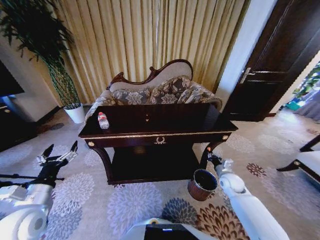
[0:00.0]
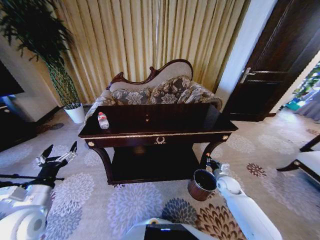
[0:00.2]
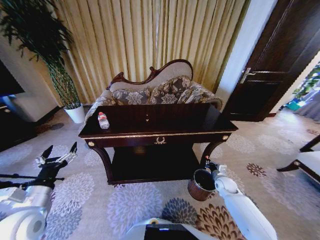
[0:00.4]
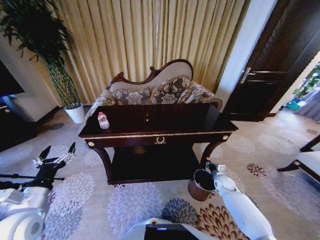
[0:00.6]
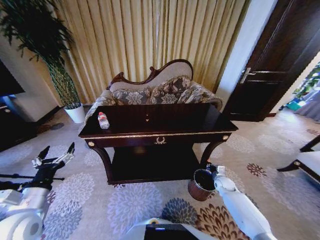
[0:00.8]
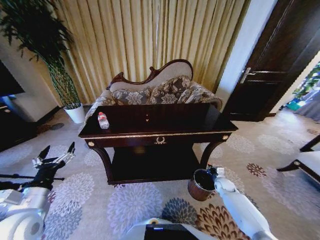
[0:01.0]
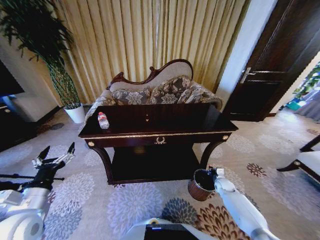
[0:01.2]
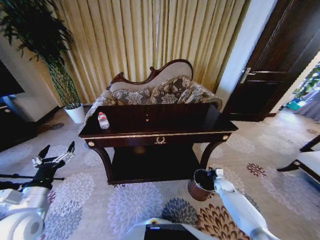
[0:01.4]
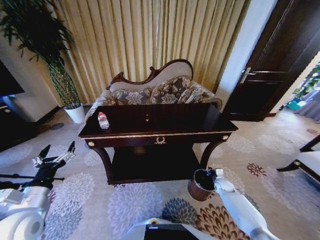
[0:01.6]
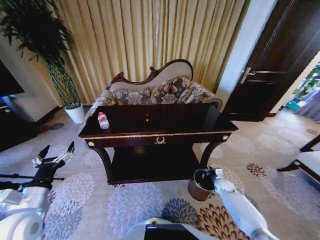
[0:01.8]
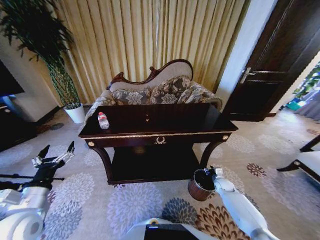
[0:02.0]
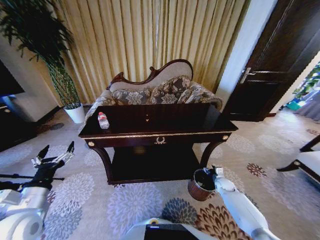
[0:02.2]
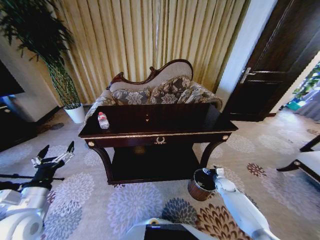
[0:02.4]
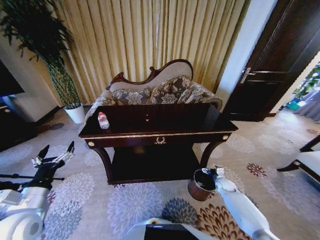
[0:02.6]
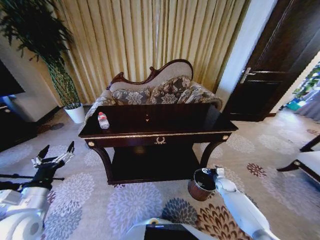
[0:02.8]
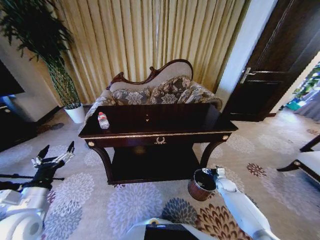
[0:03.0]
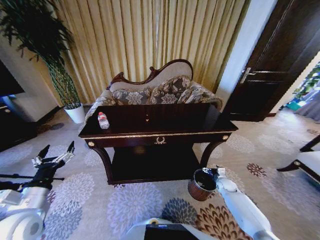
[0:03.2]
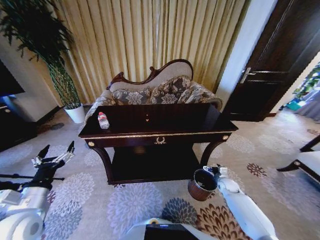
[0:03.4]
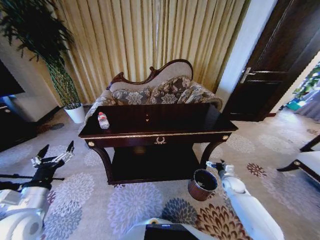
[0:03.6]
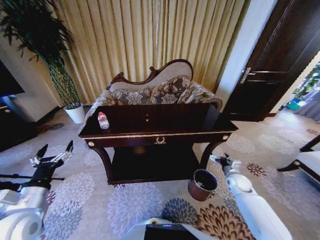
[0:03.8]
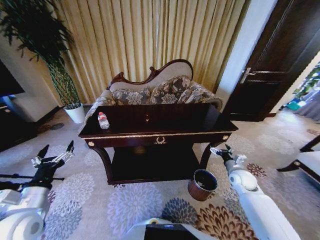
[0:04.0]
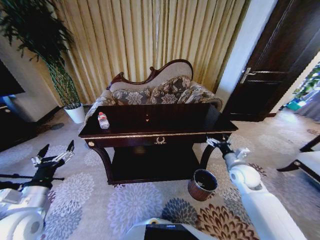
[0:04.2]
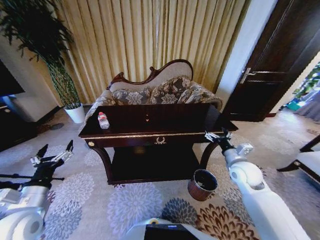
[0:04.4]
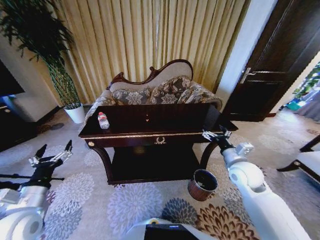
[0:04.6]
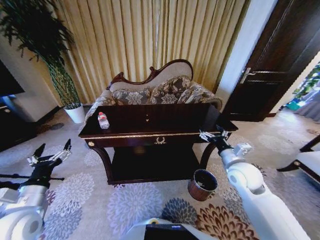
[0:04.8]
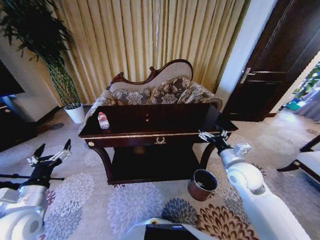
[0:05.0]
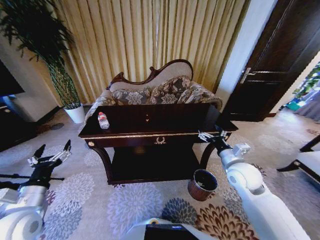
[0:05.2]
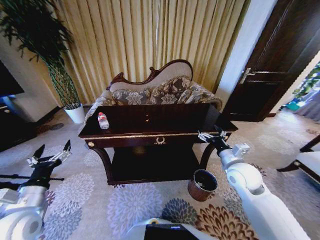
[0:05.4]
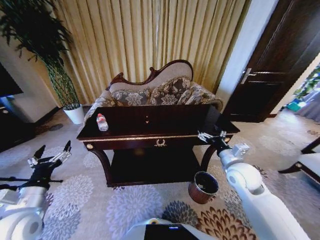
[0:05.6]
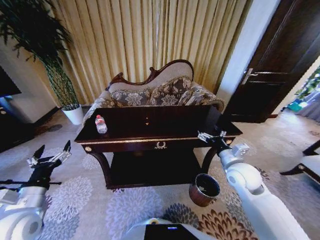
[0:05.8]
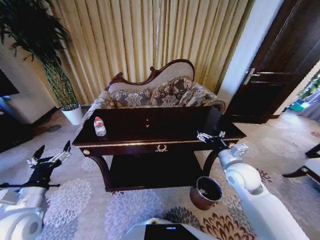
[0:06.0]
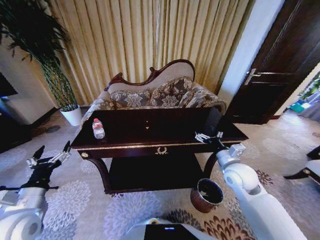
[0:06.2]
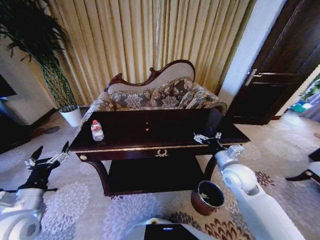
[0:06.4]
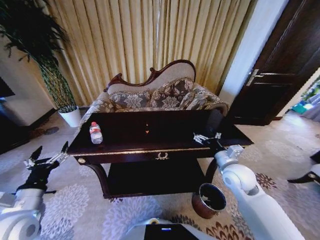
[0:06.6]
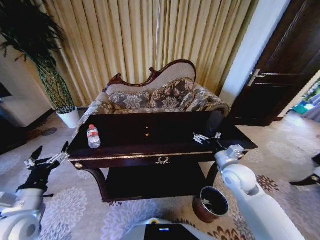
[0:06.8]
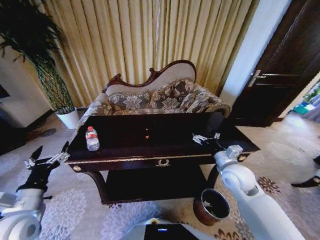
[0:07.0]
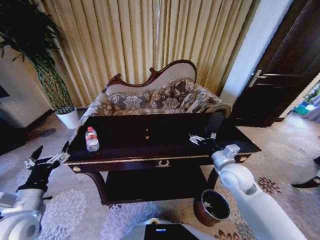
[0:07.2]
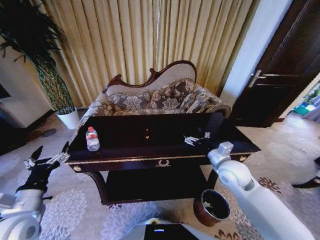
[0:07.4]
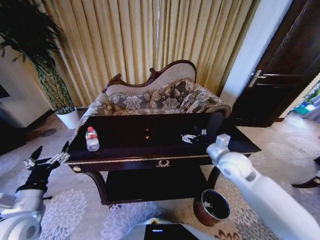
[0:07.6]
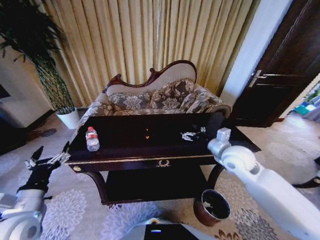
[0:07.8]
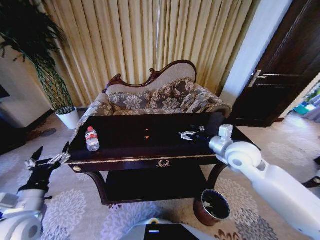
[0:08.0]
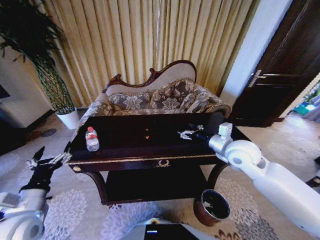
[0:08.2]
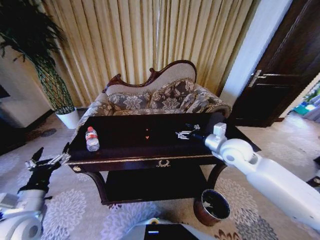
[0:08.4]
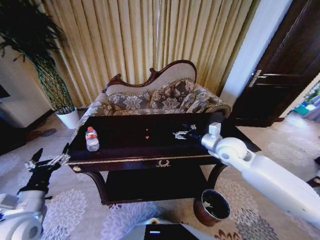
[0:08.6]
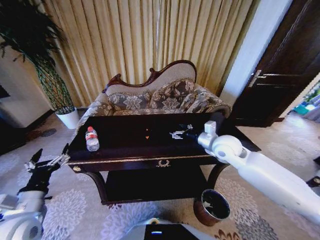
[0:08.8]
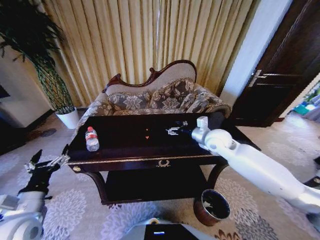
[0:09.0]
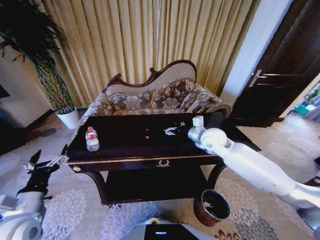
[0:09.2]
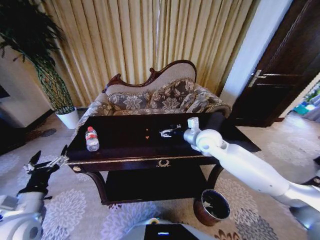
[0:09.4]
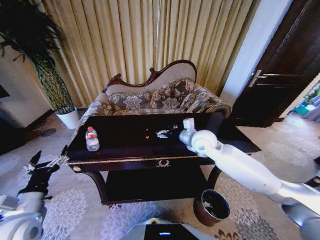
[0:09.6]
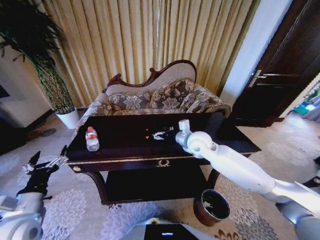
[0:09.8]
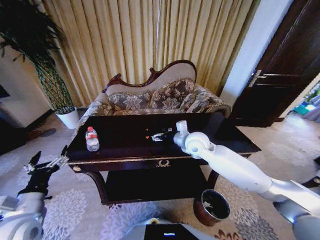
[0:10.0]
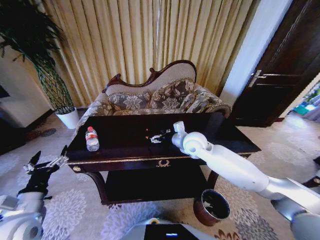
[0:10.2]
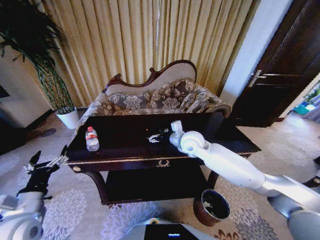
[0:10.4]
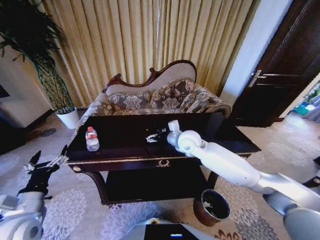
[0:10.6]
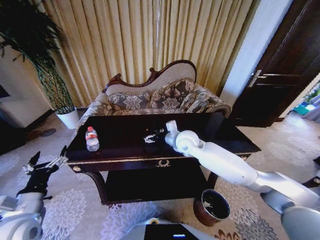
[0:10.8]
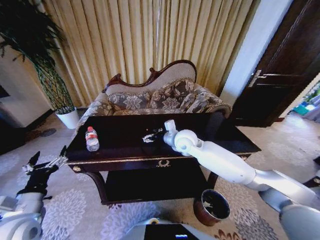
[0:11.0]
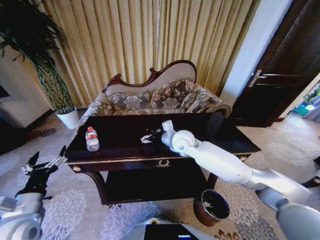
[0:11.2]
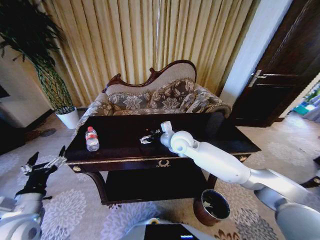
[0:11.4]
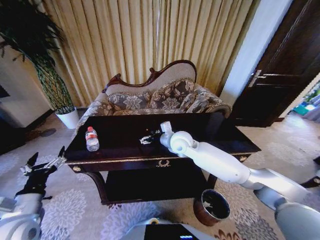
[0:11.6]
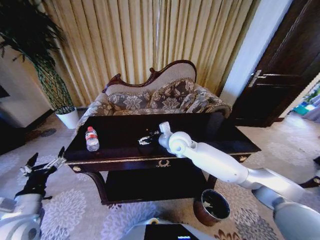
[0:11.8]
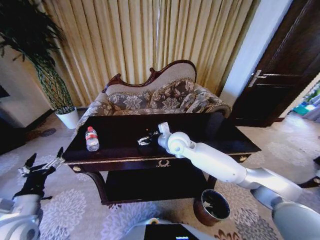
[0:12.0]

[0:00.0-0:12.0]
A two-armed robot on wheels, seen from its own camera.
Task of the whole recording: Move to the front of the table and place the trash on the table into the trash bin.
0:00.0 to 0:01.6: The right gripper moves downward, roughly 15 cm.
0:01.6 to 0:03.0: The right gripper opens up.
0:03.0 to 0:04.4: The right gripper heads upward, covering about 25 cm.
0:04.4 to 0:06.0: The right gripper ends up approximately 5 cm from where it was.
0:06.0 to 0:07.6: The right gripper changes place by about 5 cm.
0:07.6 to 0:09.0: The right gripper heads forward, covering about 10 cm.
0:09.0 to 0:10.4: The right gripper is displaced to the left by roughly 10 cm.
0:10.4 to 0:12.0: The right gripper heads to the left, covering some 5 cm.

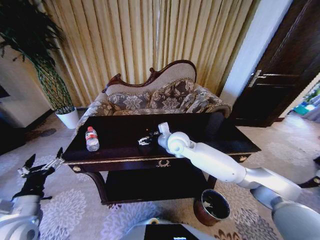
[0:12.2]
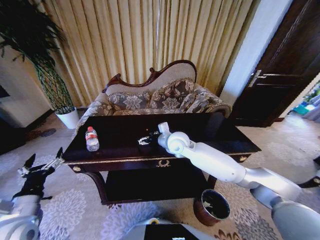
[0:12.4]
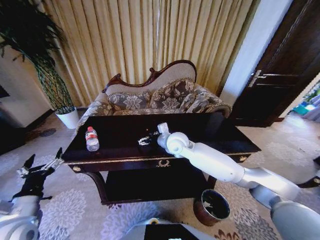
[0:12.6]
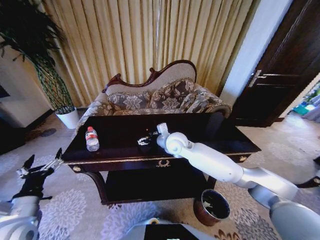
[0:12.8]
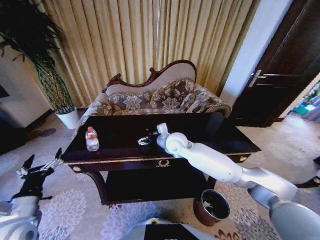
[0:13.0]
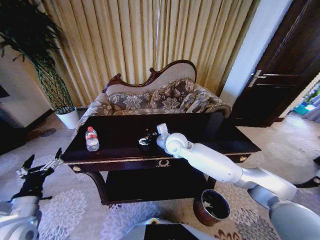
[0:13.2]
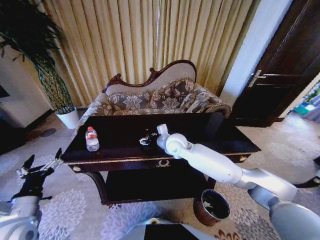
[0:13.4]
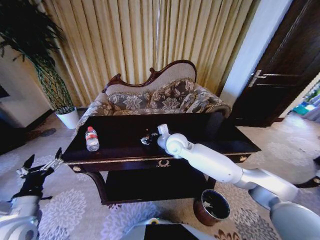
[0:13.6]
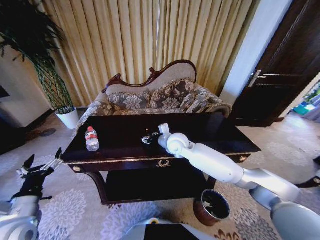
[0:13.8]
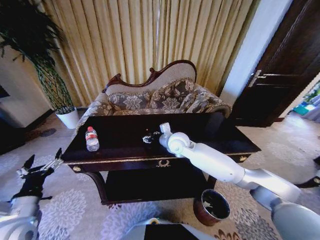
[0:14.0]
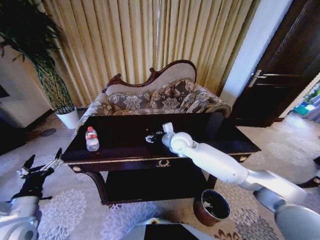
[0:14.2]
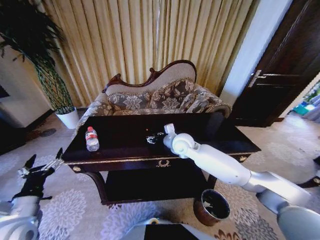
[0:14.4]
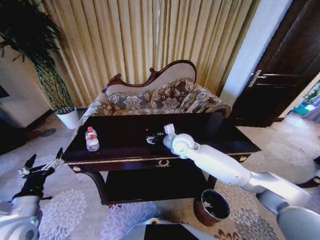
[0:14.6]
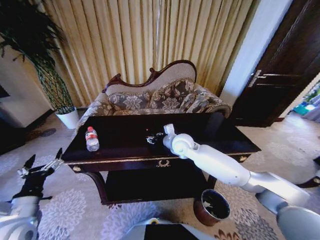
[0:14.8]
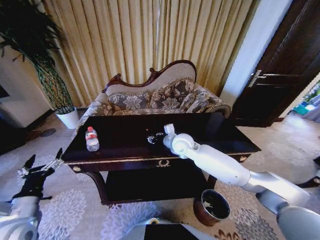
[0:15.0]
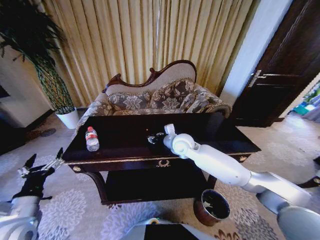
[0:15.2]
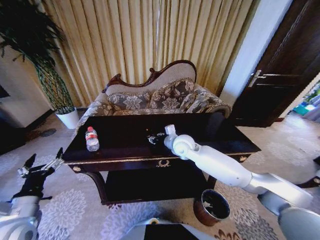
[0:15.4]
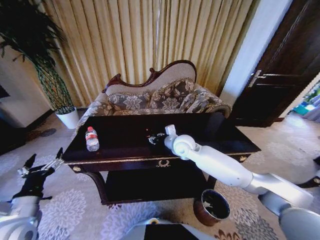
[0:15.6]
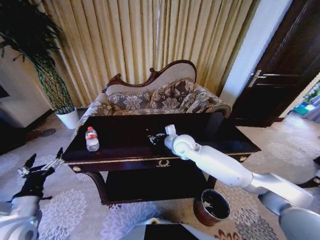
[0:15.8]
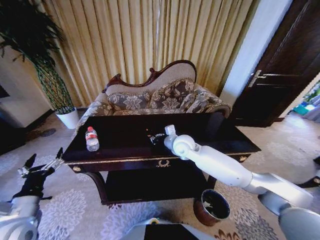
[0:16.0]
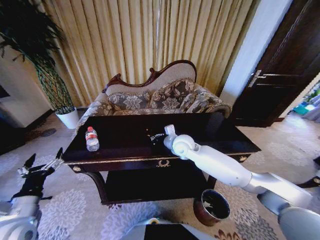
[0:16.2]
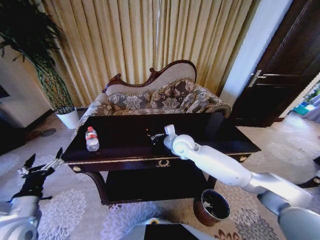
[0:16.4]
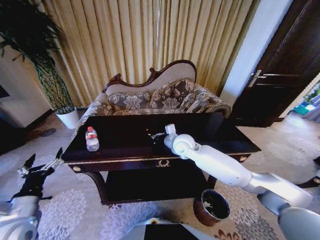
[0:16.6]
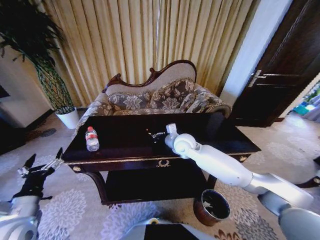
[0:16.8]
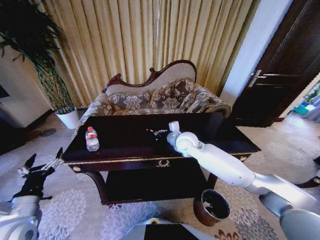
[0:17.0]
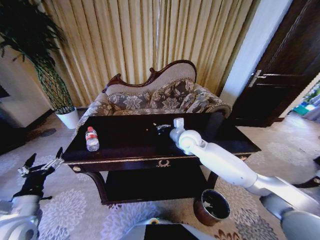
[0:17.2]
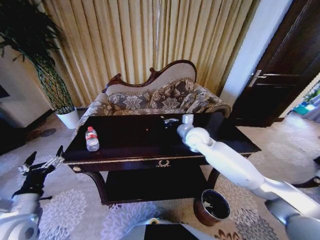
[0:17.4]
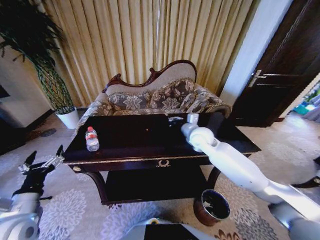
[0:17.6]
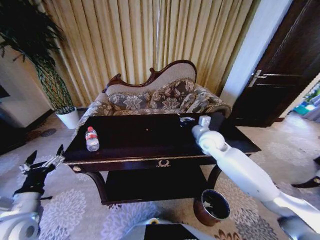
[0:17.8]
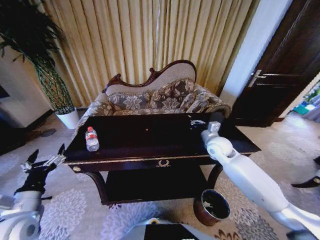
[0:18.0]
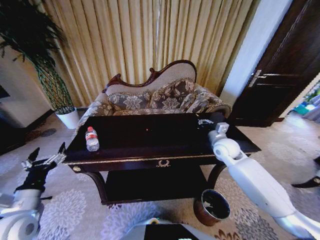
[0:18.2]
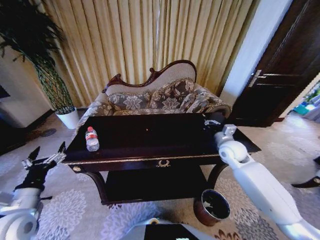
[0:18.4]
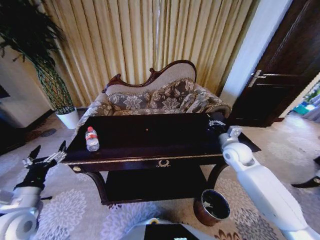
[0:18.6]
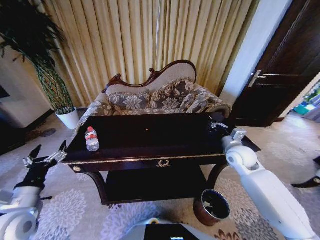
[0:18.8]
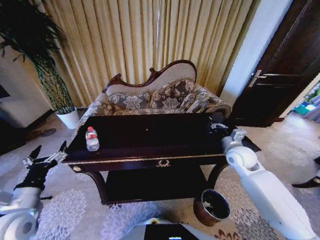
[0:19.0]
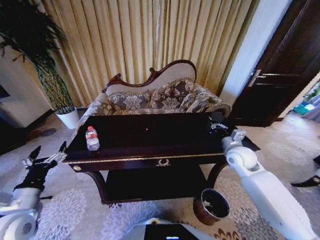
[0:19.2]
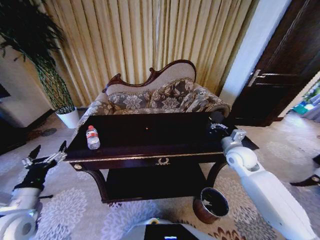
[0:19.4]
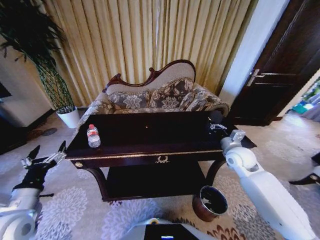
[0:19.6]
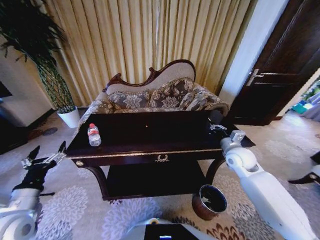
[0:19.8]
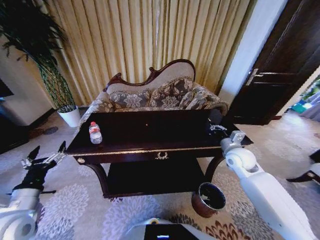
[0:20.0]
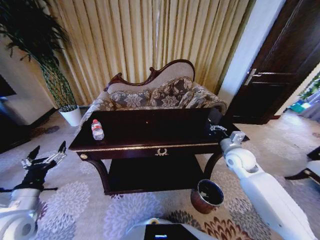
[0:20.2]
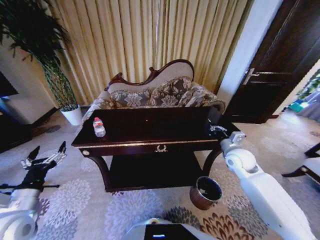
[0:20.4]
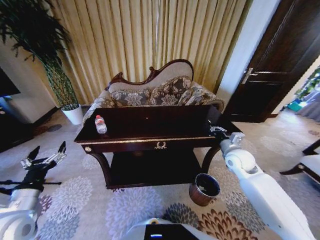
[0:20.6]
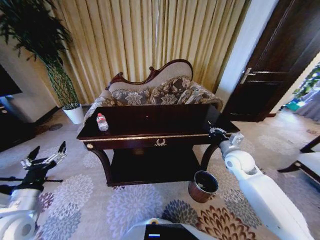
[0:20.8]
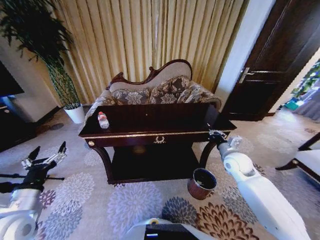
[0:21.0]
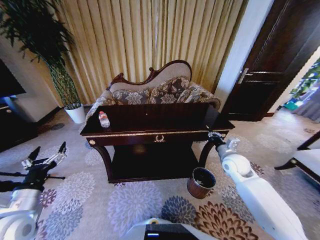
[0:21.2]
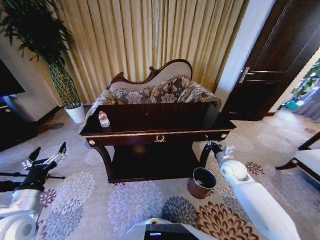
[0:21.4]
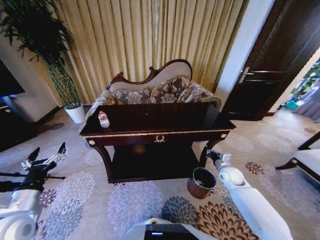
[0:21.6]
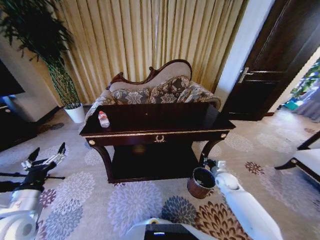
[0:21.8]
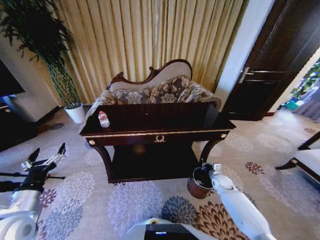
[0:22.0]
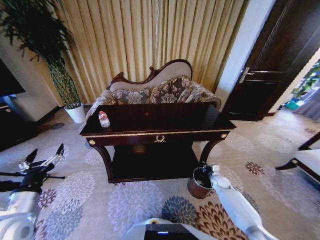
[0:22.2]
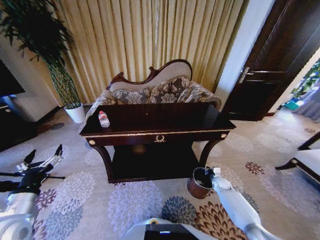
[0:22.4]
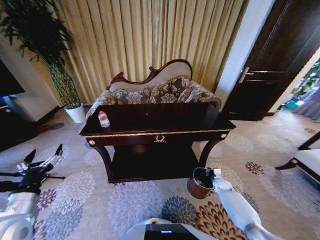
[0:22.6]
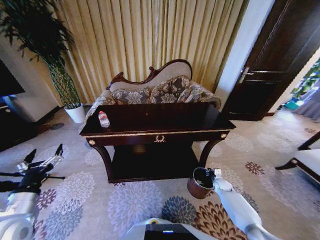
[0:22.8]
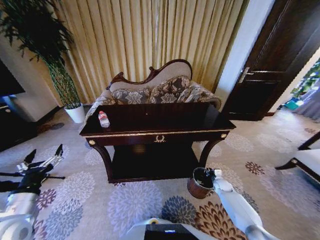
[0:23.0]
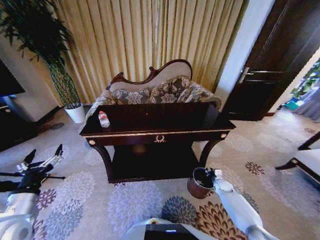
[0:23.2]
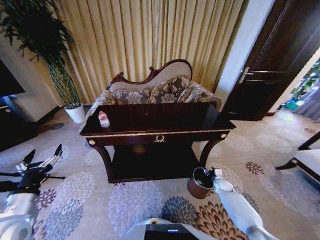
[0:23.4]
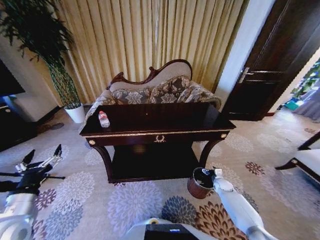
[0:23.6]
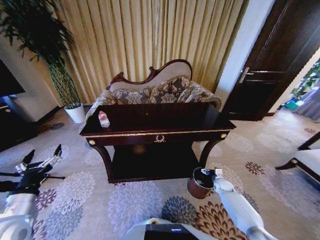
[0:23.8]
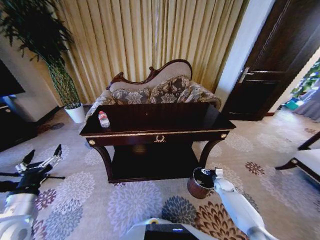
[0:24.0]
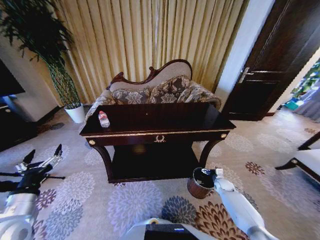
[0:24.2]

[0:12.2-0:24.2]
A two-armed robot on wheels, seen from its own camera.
Task of the whole recording: Move to the front of the table and place the trash on the table into the trash bin.
0:12.2 to 0:13.8: The right gripper closes.
0:13.8 to 0:15.2: The grippers make only small movements.
0:16.6 to 0:18.2: The right gripper shifts approximately 20 cm to the right.
0:18.2 to 0:19.8: The right gripper moves approximately 5 cm.
0:21.2 to 0:22.6: The right gripper shifts some 25 cm downward.
0:22.6 to 0:24.2: The right gripper opens.
